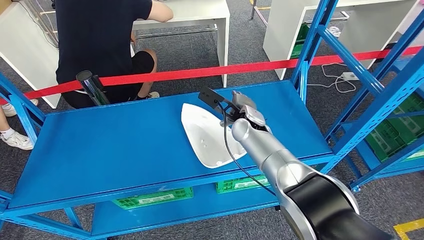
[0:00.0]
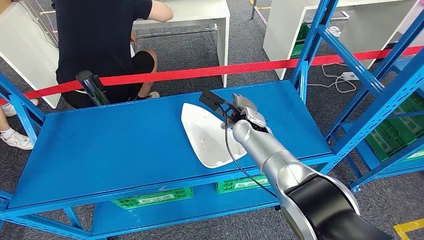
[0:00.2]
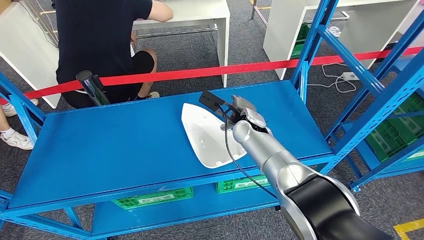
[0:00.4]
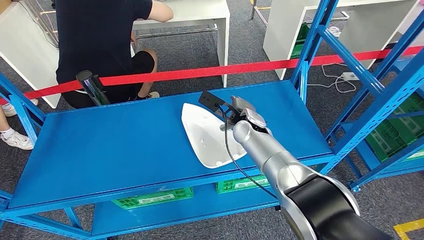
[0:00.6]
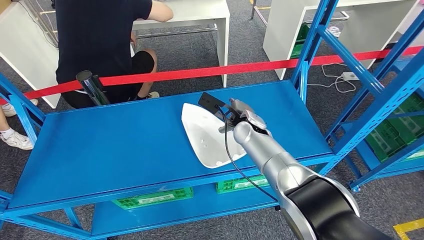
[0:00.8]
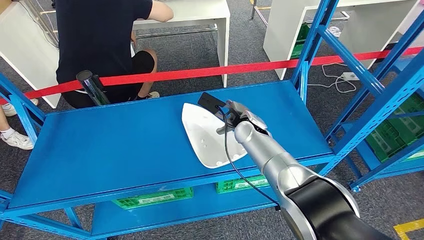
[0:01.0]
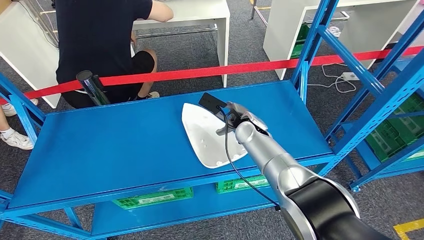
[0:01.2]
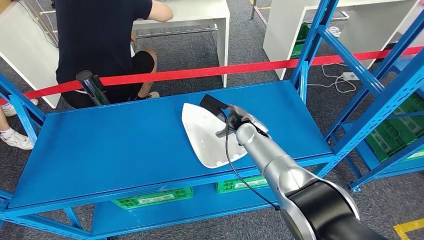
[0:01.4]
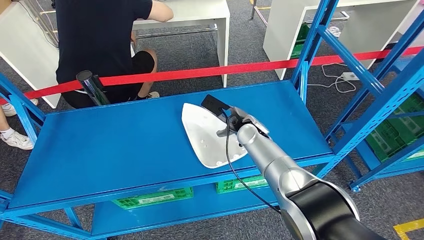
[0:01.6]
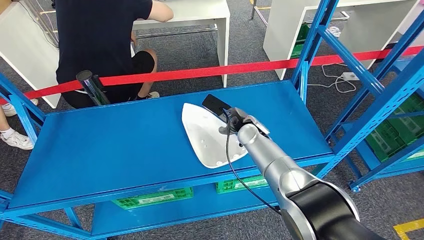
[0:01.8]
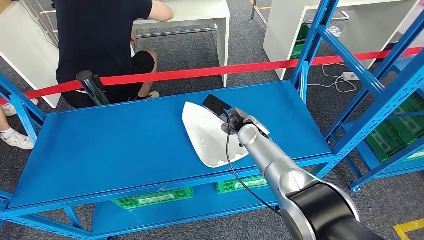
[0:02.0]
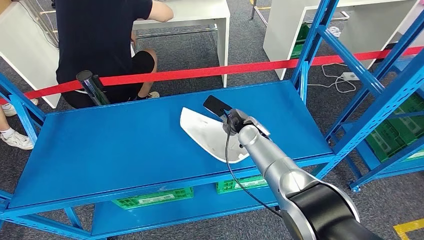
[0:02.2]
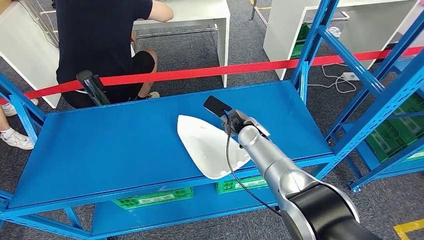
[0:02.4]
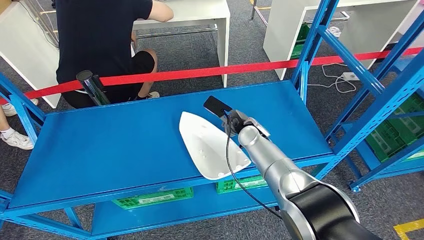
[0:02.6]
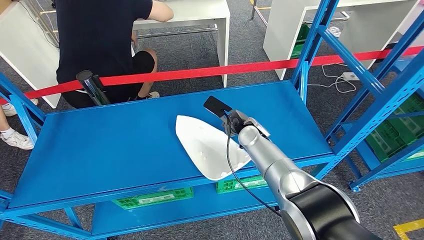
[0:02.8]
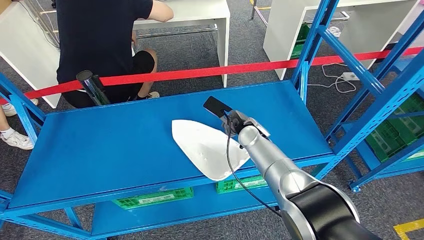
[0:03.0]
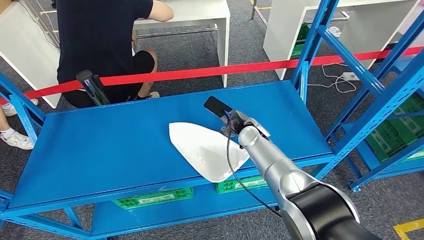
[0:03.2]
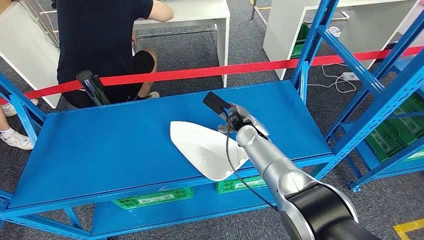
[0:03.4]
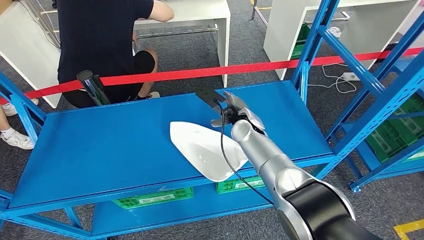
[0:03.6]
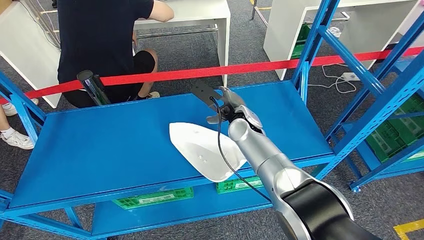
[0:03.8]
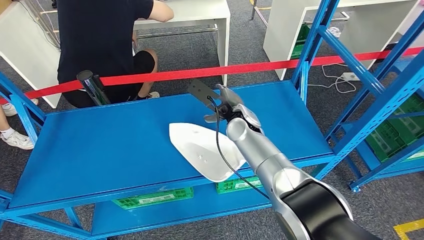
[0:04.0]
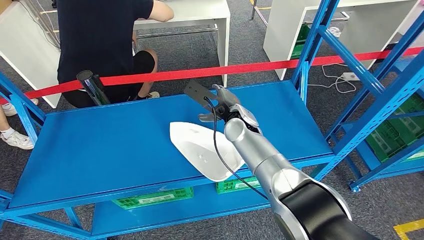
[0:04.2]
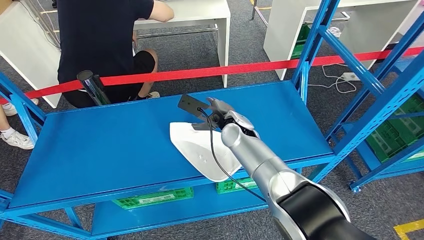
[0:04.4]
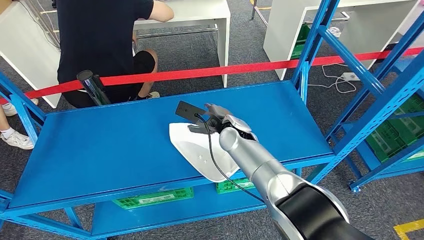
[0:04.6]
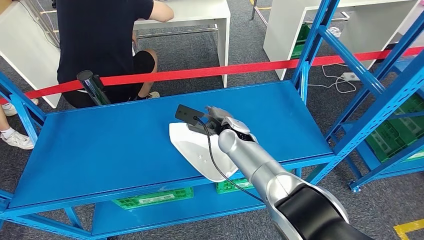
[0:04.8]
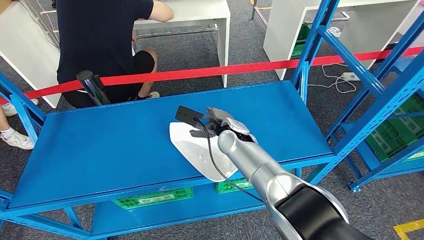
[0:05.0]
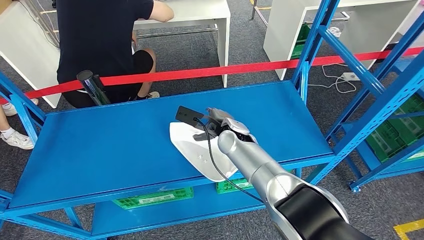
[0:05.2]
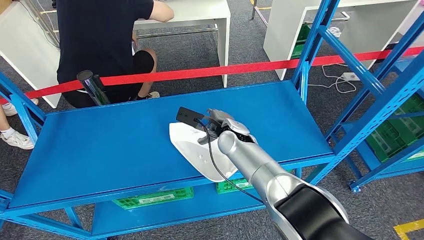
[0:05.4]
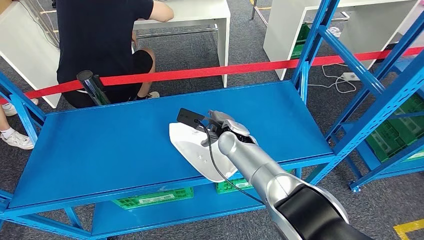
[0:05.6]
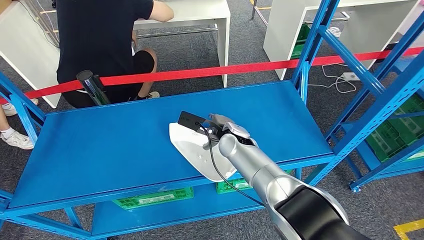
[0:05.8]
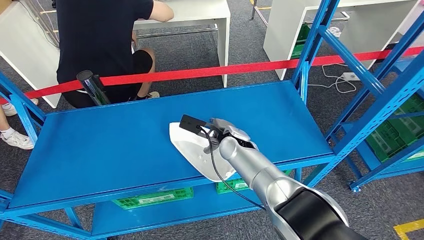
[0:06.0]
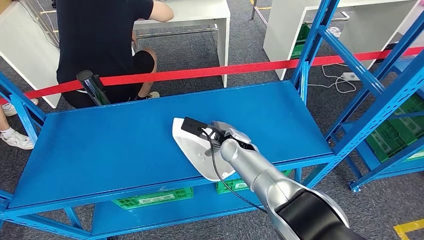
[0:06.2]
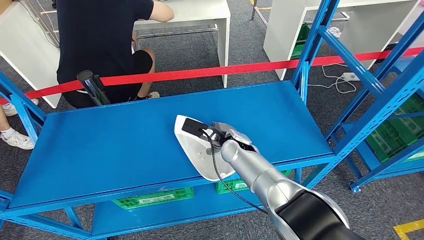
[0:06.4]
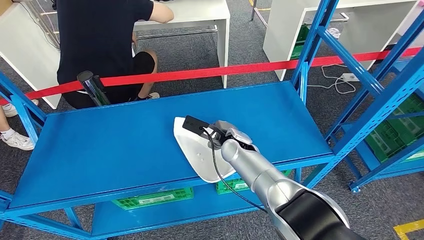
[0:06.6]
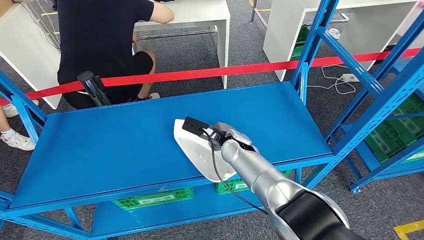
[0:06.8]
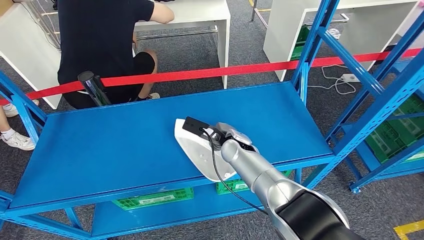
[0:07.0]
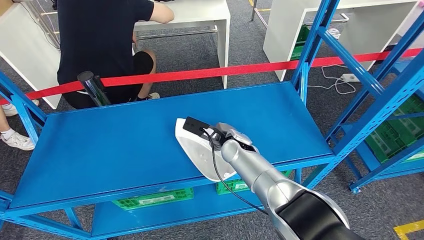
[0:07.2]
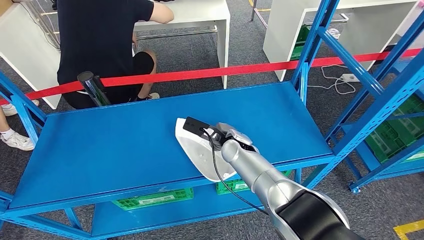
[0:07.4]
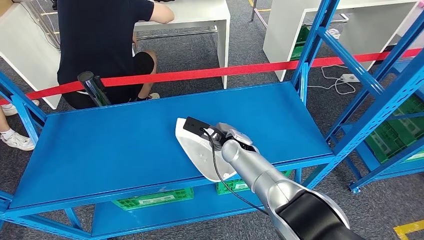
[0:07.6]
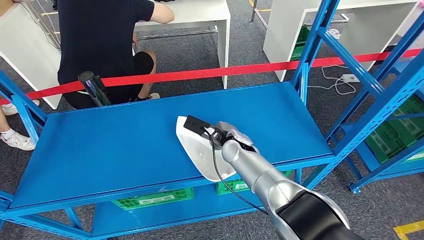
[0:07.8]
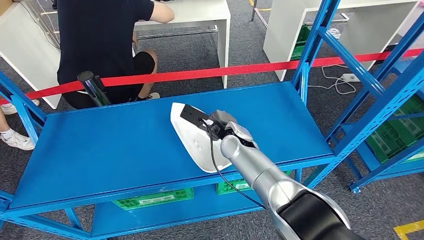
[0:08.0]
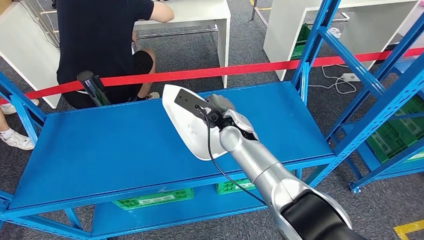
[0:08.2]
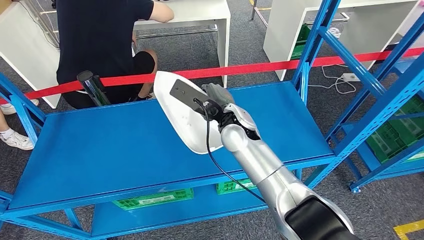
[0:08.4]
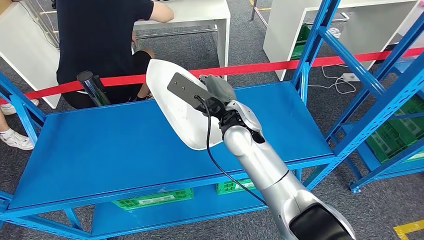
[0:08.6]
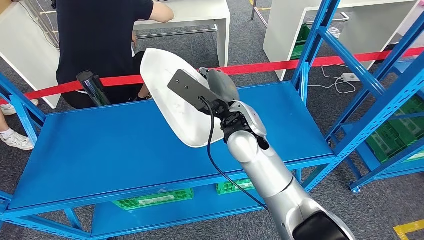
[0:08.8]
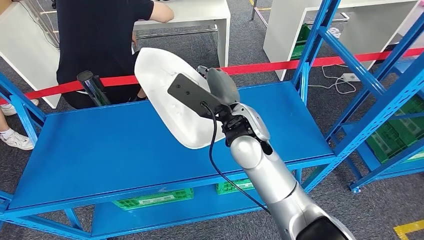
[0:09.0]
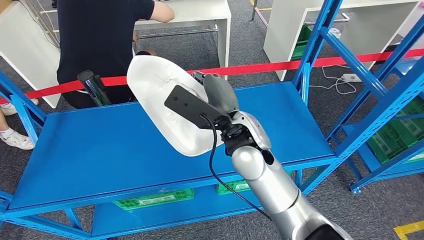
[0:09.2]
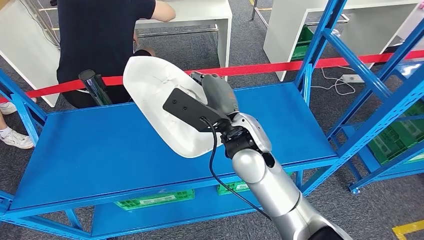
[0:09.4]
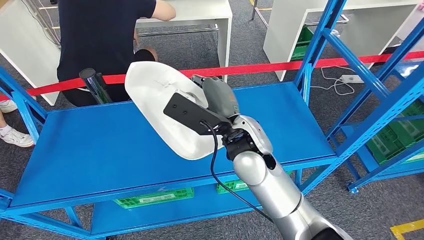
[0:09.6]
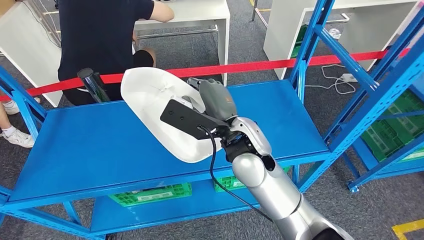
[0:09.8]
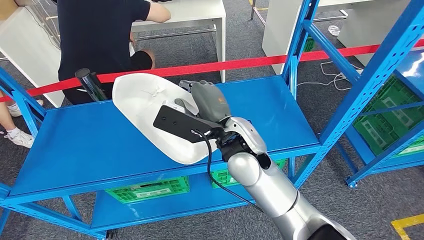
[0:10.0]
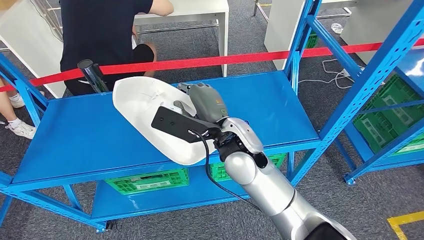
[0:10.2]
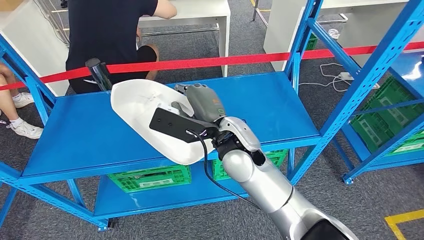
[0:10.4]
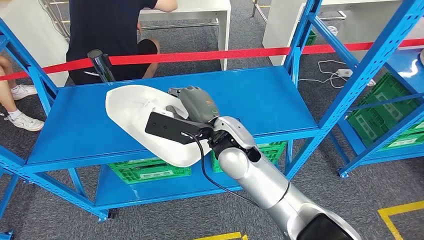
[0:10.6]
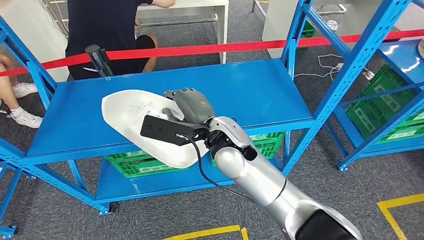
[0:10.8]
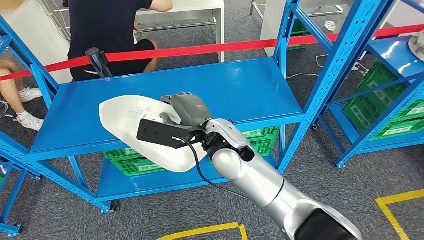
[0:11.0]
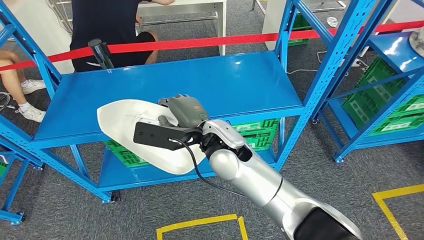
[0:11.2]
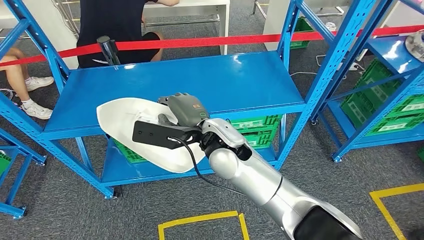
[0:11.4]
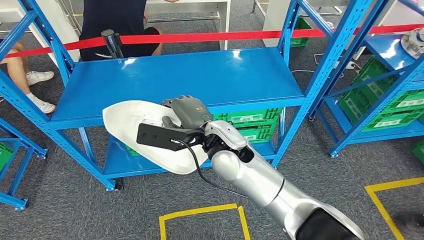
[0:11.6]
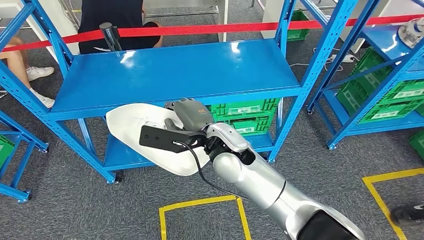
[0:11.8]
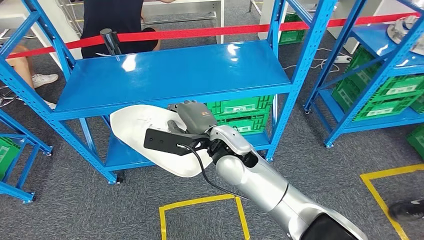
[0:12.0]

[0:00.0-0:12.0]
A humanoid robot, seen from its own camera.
Step, 0:00.0 to 0:08.6: Pick up the small component from the shelf.
0:00.0 to 0:01.6: The hands stay close to where they were, moving slightly.
0:01.6 to 0:03.0: Both hands stay put.
0:03.0 to 0:04.4: The right hand ends up approximately 5 cm from where it was.
0:04.4 to 0:07.6: The hands stay close to where they were, moving slightly.
0:07.6 to 0:09.0: The right hand goes some 15 cm upward.

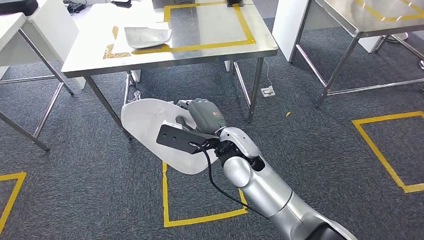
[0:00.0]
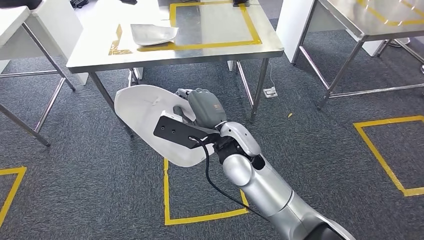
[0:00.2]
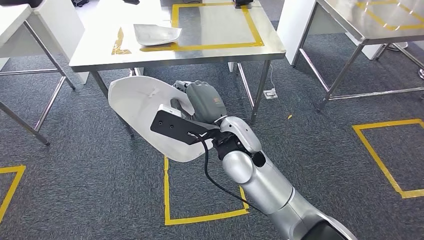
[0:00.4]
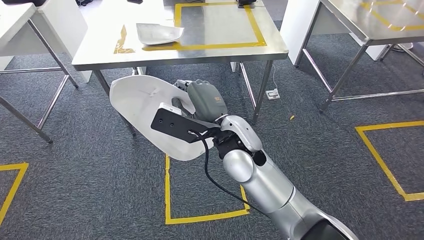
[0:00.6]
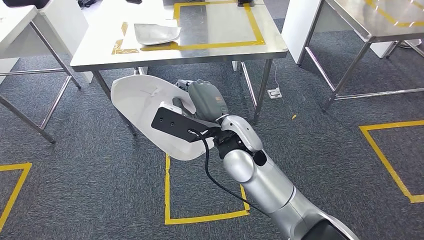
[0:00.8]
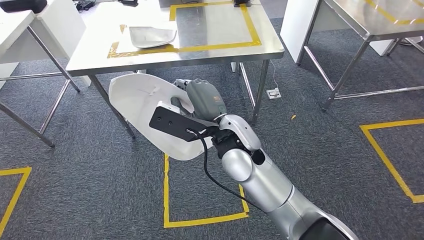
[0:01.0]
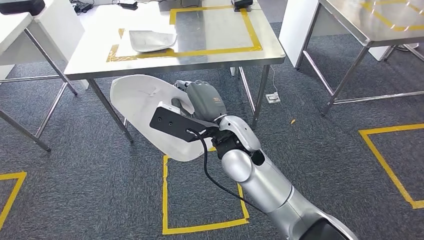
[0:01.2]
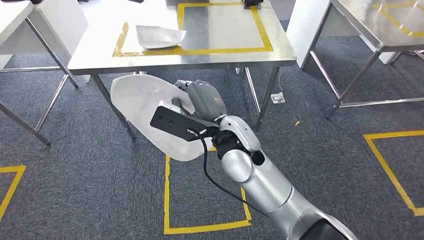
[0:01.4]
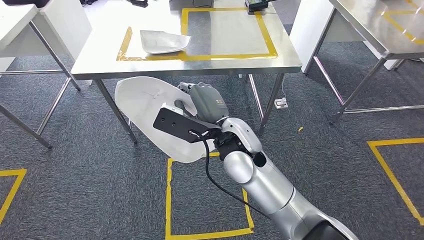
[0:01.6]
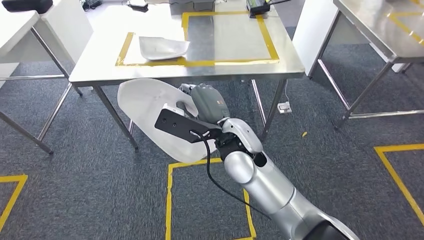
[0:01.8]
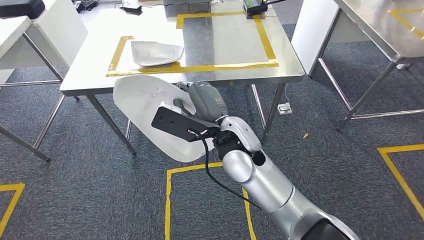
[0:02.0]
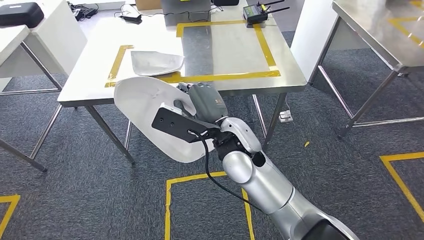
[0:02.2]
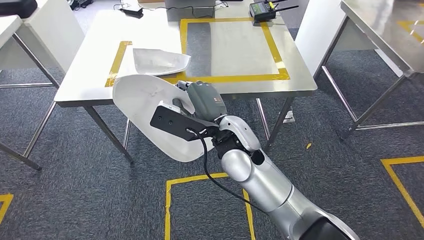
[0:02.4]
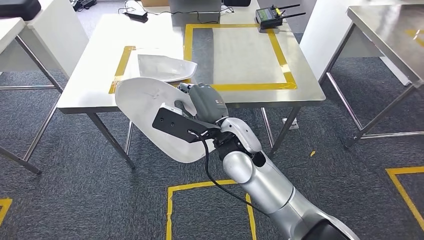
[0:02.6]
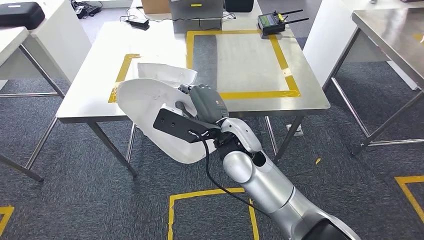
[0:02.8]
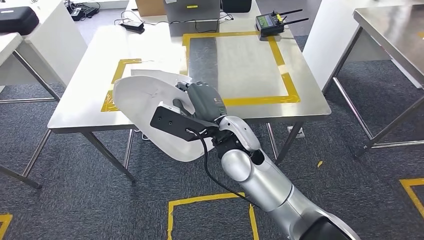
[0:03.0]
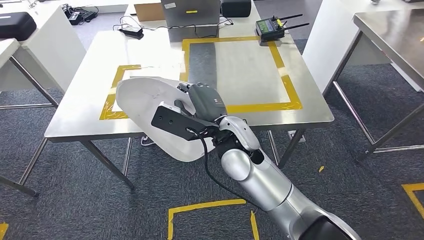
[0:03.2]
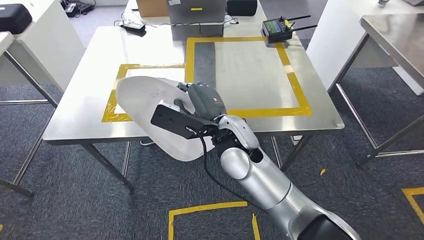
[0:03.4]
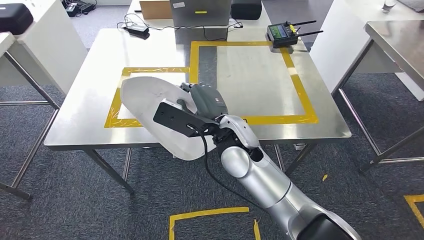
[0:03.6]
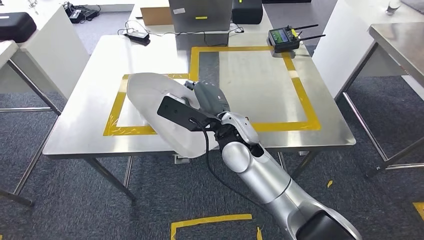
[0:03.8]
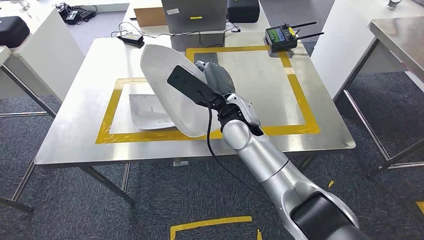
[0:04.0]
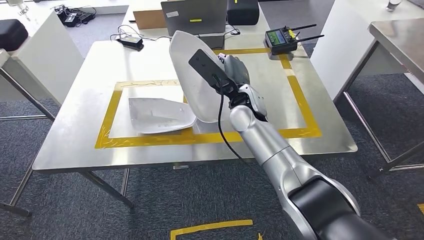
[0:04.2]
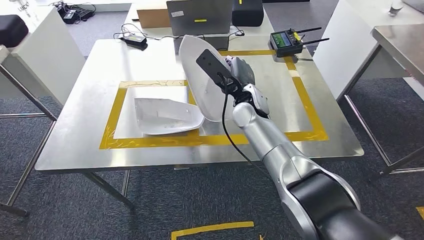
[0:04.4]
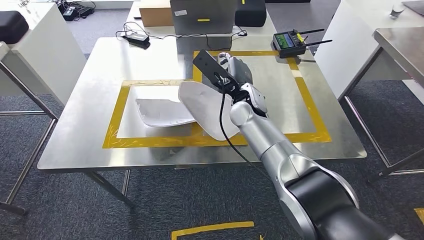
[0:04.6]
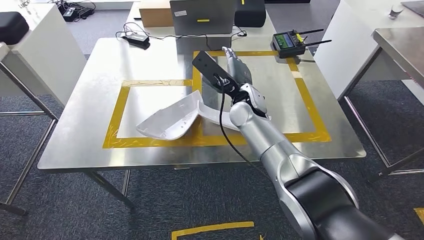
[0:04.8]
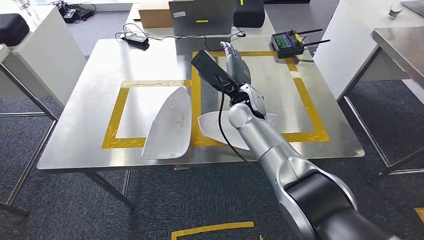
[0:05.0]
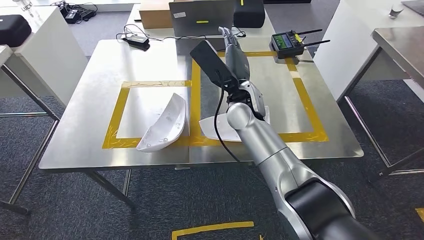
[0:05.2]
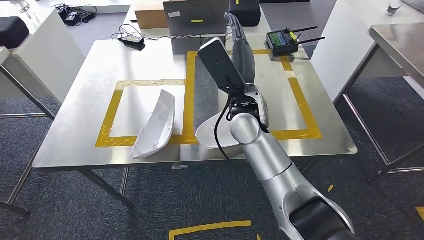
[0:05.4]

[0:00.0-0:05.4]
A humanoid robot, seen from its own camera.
Step, 0:00.0 to 0:04.2: Move the small component to the workbench.
